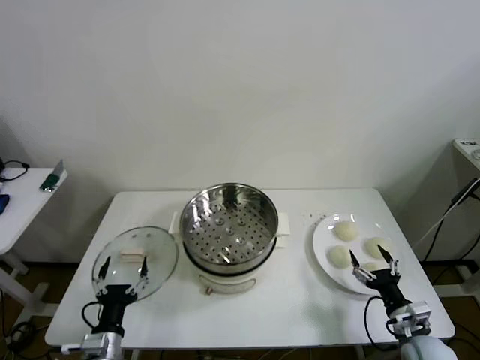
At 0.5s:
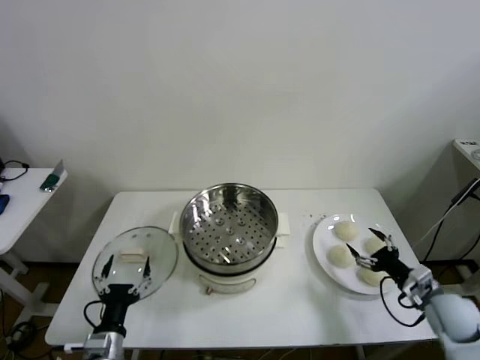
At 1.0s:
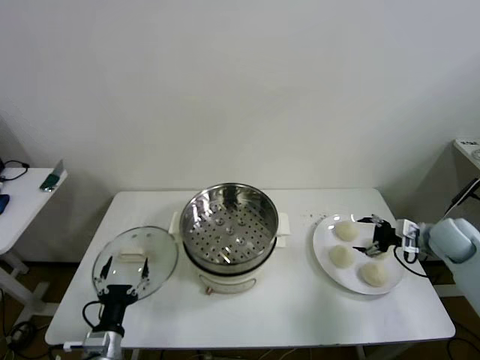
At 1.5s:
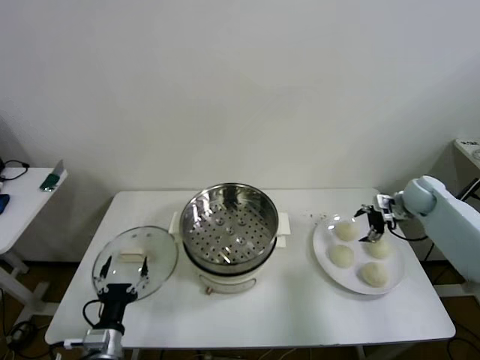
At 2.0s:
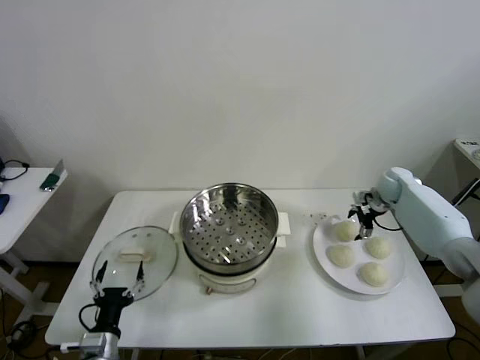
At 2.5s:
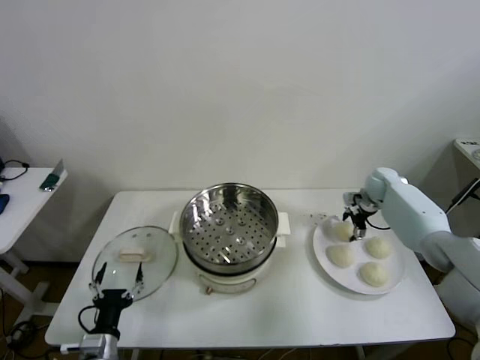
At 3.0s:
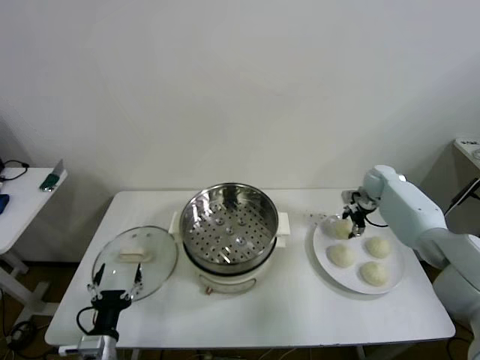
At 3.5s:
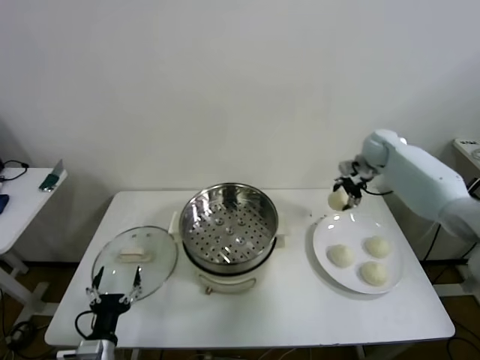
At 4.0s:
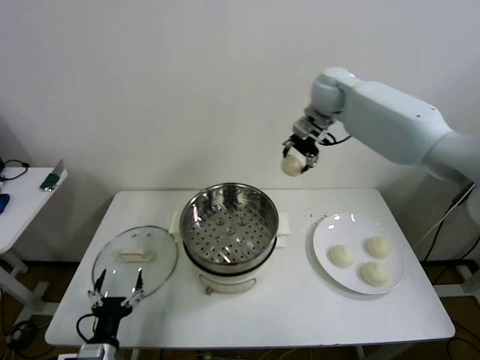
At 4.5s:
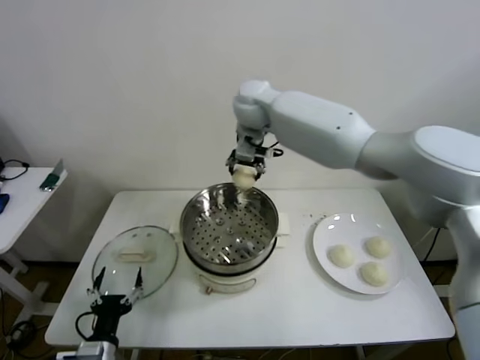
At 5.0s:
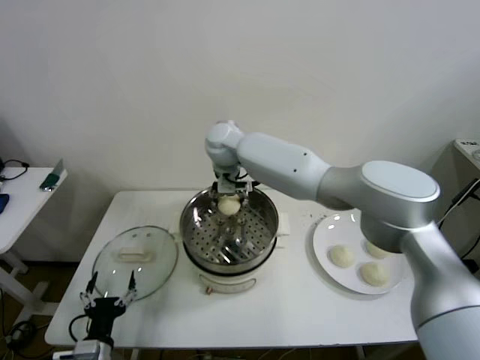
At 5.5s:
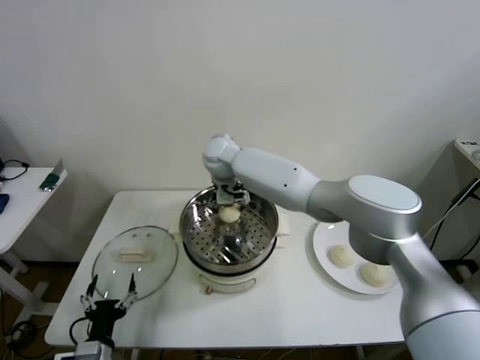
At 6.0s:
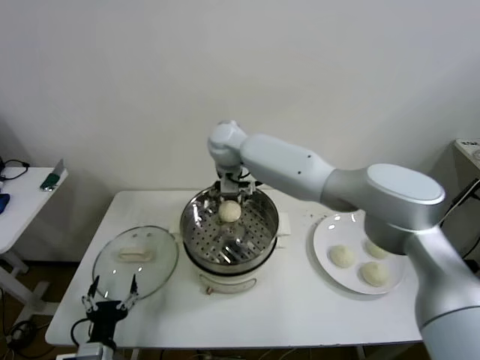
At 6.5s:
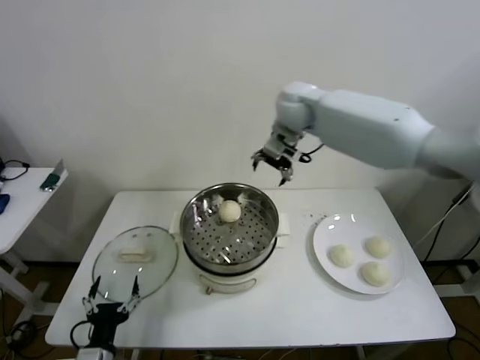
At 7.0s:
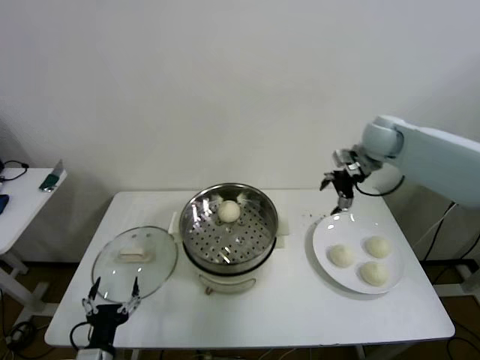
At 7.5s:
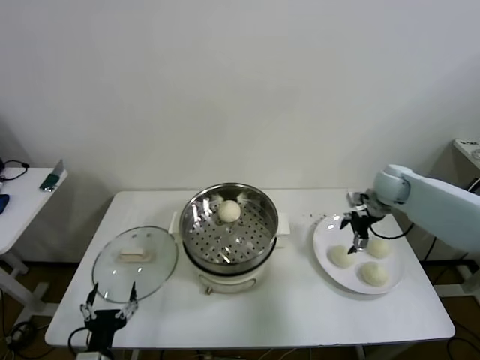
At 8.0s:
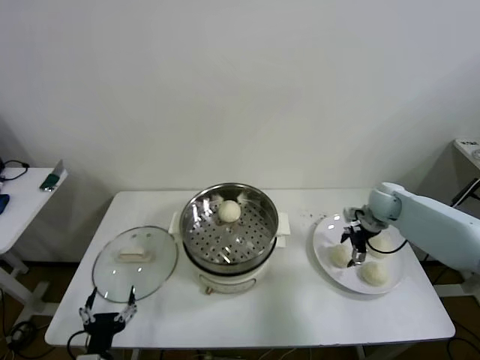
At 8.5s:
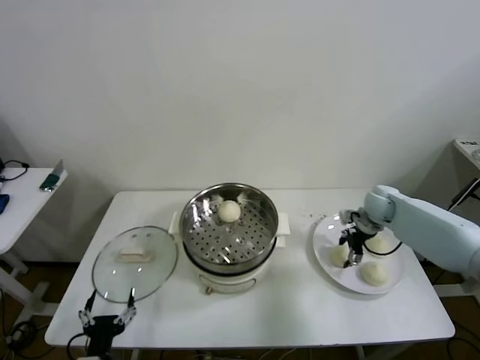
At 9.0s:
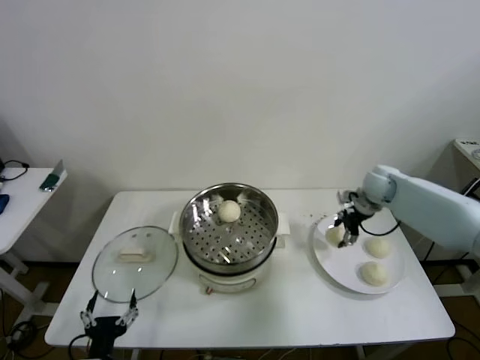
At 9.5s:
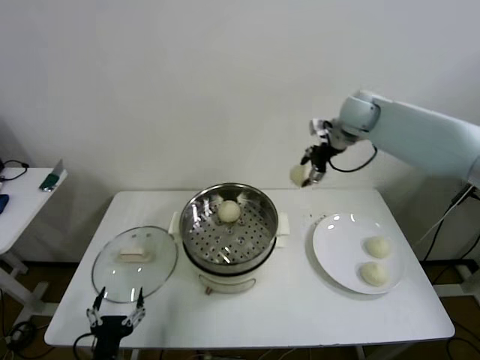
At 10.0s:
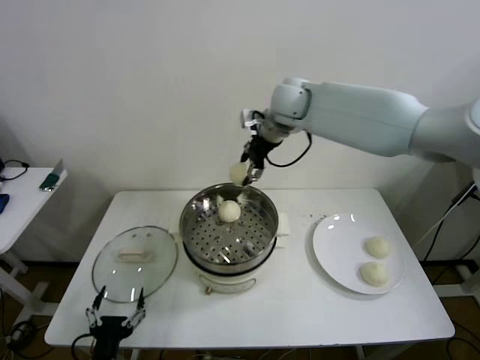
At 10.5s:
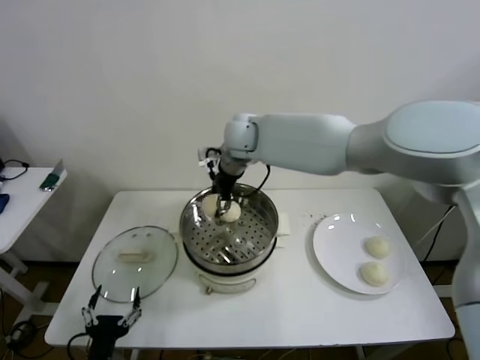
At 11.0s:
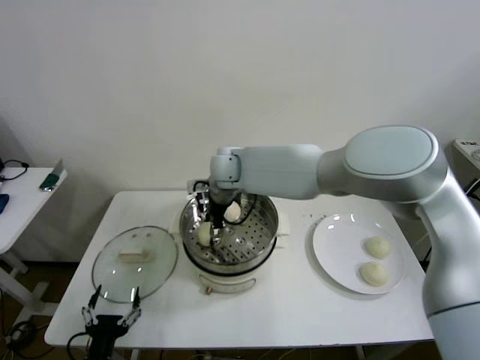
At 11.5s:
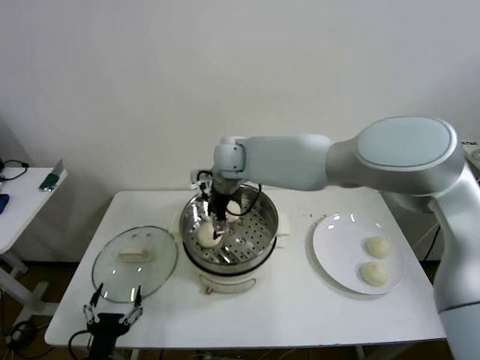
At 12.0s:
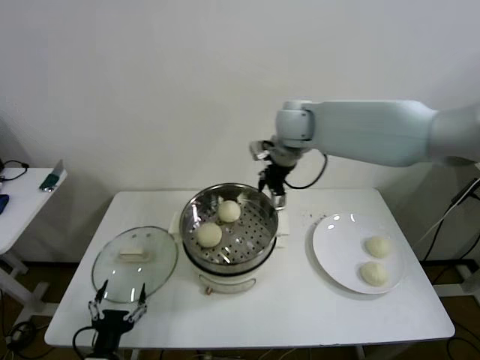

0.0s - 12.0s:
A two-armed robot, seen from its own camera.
Step, 0.0s - 2.5s: Grasp the baozi in the plate with right gripper.
Step, 3.0s - 6.0s: Place the baozi on the steamer with right gripper.
Step, 6.5s - 8.0s: Grasp the baozi in the plate with right gripper.
Step, 8.5s - 11.5s: Place the baozi on the steamer with right gripper.
2.0s - 4.0s: The right gripper moves upward and to the left, some 40 cm, and closes.
4.0s - 6.0s: The right gripper is displaced to the left and downward by some 20 cm, and opens up.
6.0s - 8.0s: The right gripper is displaced to the right and downward by about 40 cm.
8.0s - 10.0s: The right gripper is displaced to the left and upward by roughly 40 cm, and closes.
10.0s - 12.0s: The right gripper travels to the left and back again, about 10 cm each way, and opens up.

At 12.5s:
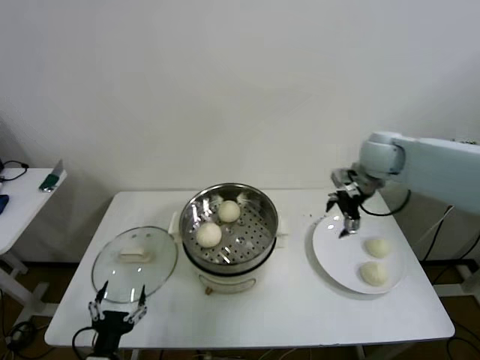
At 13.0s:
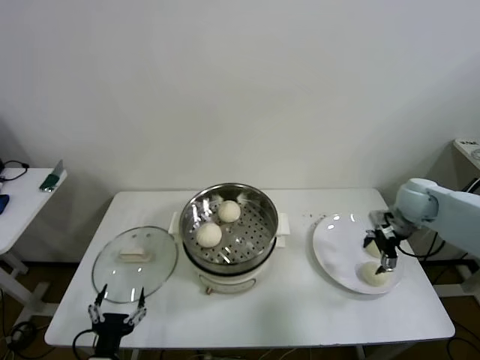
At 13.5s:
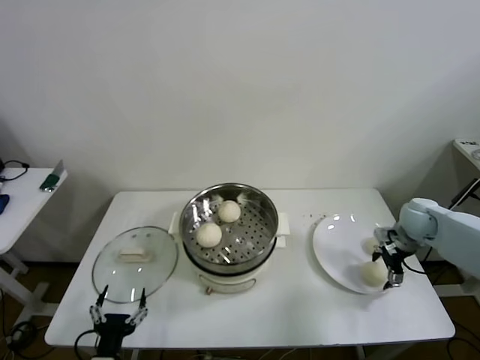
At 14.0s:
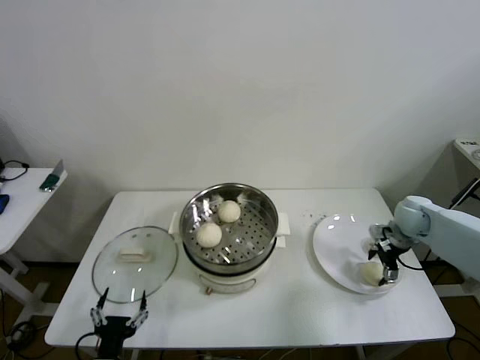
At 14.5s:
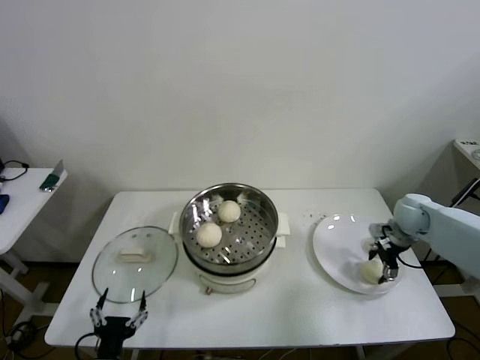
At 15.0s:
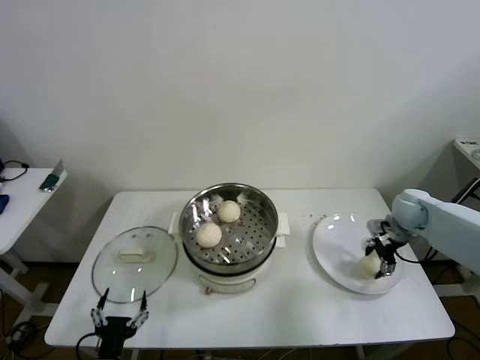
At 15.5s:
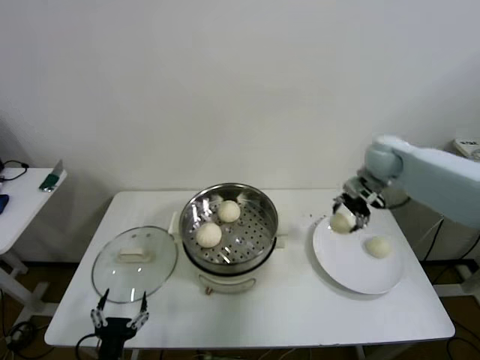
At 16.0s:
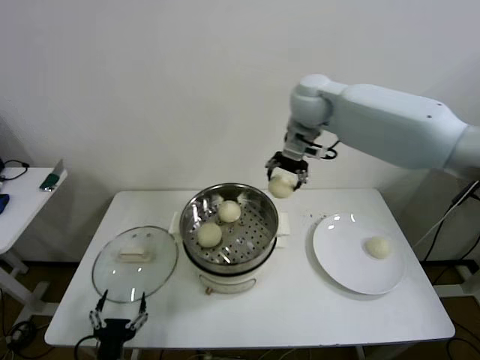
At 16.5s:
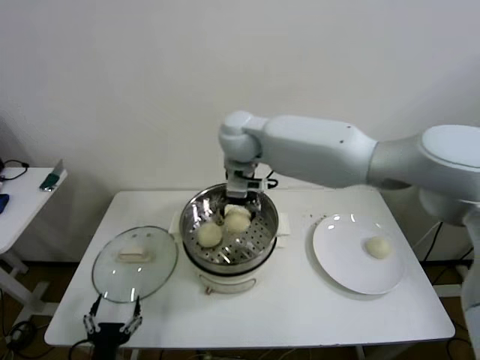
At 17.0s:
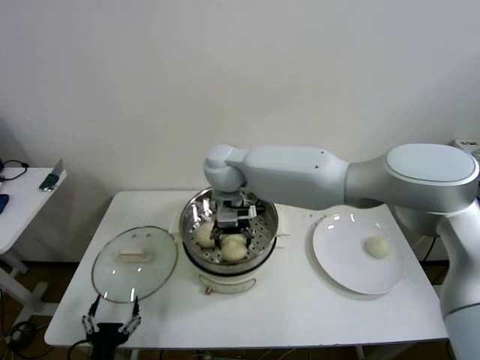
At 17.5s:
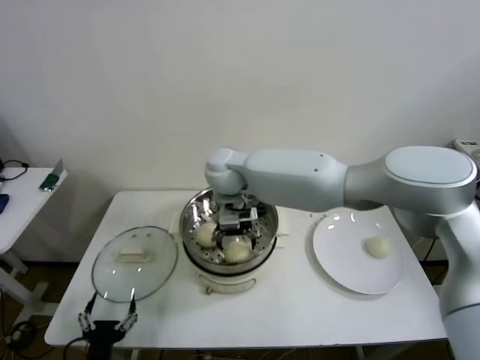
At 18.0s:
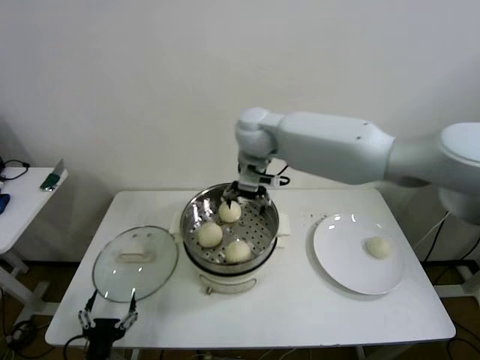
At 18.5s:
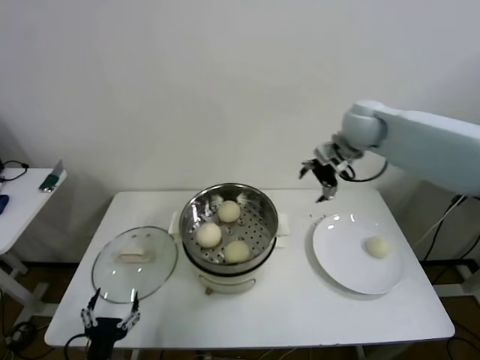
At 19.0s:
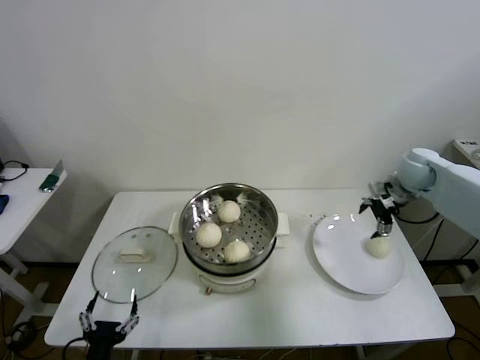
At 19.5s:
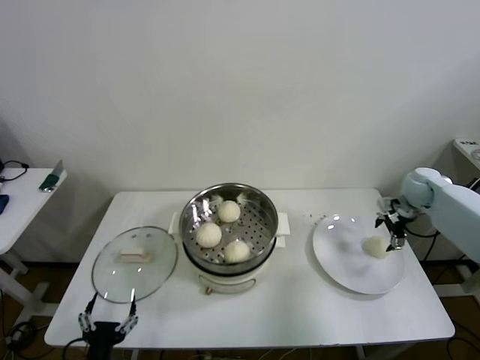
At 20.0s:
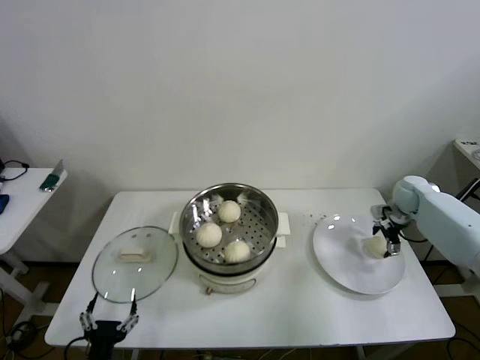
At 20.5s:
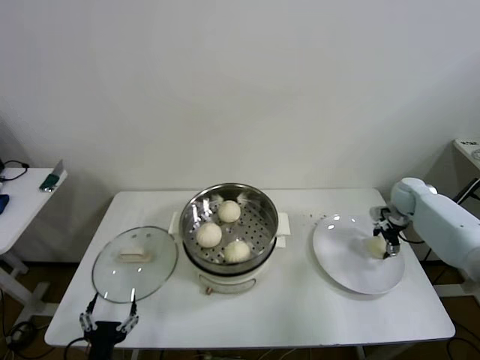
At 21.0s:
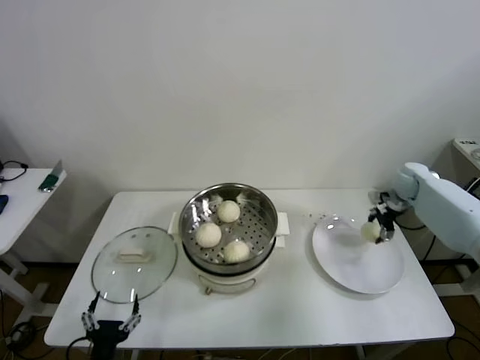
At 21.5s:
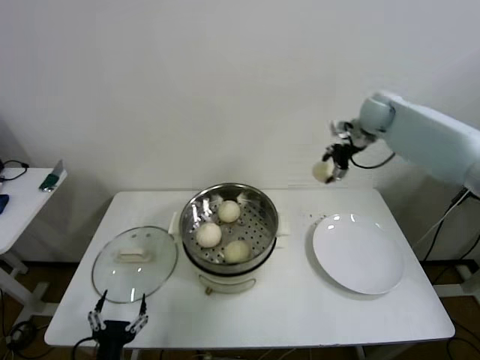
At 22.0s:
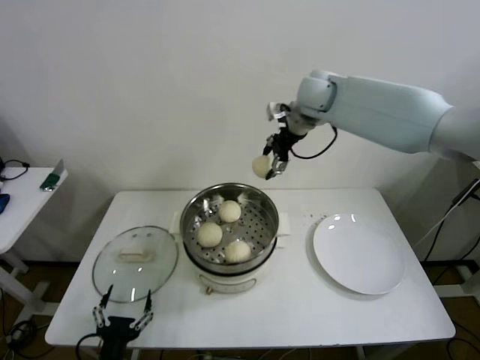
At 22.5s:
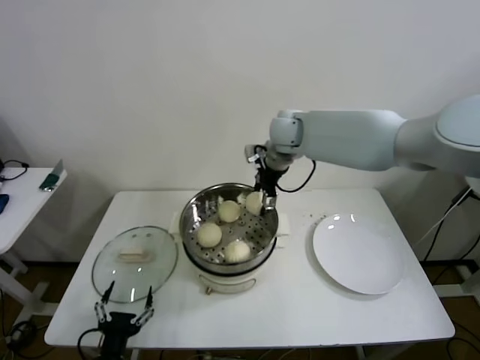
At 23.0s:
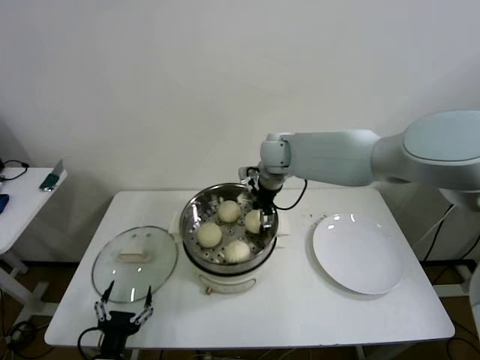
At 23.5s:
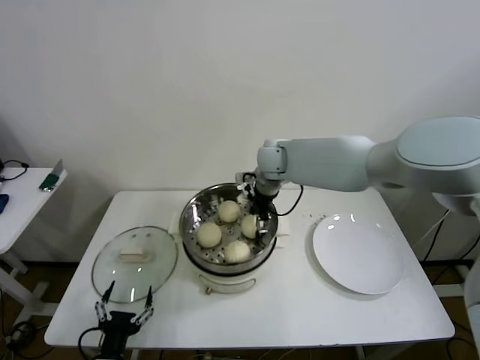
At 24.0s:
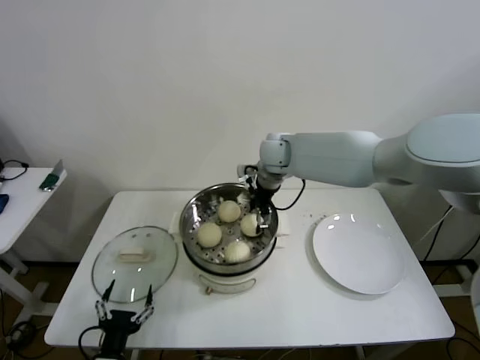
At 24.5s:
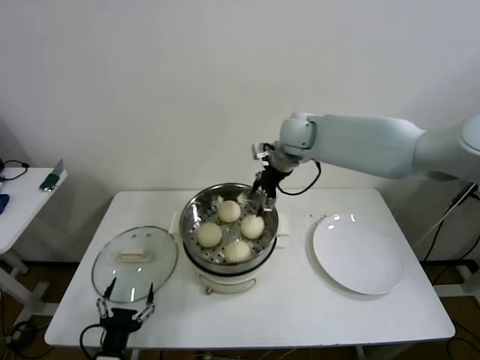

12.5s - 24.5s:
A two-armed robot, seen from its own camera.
Step, 12.5s - 14.5s: Grasp the baozi in the plate with right gripper.
Step, 15.0s - 17.5s: Place the baozi on the steamer with right gripper.
Step, 18.0s - 20.0s: Grasp the baozi in the plate with right gripper.
Step, 20.5s - 24.0s: Place the baozi on the steamer with right gripper.
12.5s - 14.5s: The right gripper heads downward and to the right, covering roughly 20 cm, and closes its fingers.
14.5s - 16.5s: The right gripper moves to the left and upward, approximately 50 cm.
16.5s - 18.5s: The right gripper goes approximately 30 cm to the right, and opens its fingers.
18.5s - 20.5s: The right gripper goes about 30 cm downward and to the right, and closes.
20.5s - 22.5s: The right gripper travels to the left and upward by about 40 cm.
22.5s - 24.5s: The right gripper opens up.

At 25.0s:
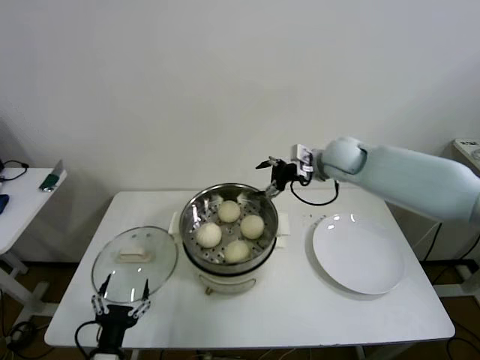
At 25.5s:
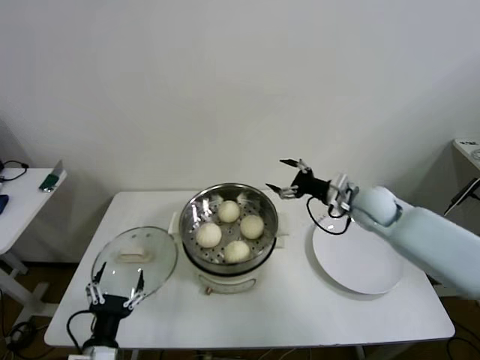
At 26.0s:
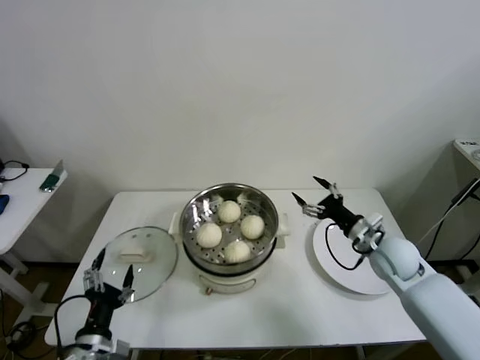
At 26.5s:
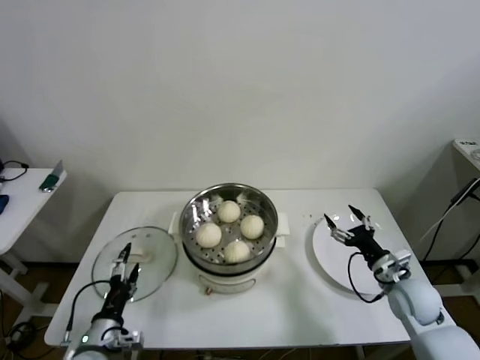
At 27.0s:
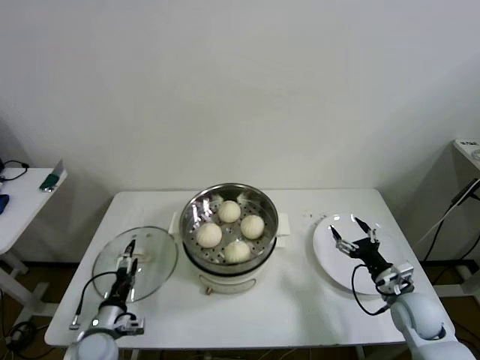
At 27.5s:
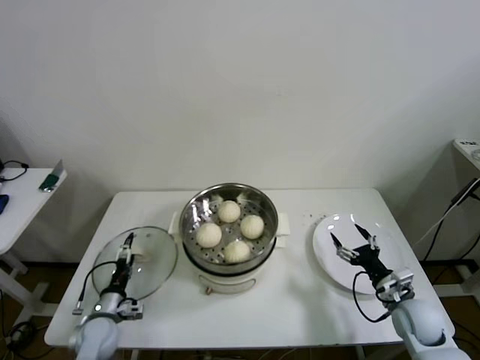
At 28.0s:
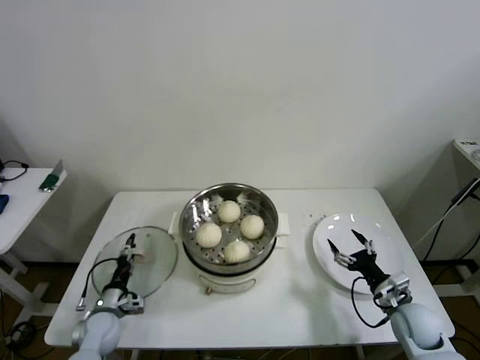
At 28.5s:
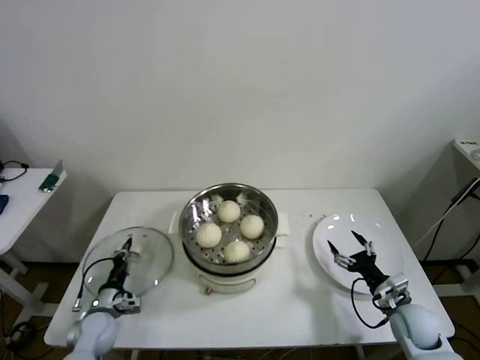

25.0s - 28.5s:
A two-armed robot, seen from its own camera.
Step, 25.0s - 28.5s: Grasp the pot lid with left gripper.
25.0s - 27.0s: The left gripper is displaced forward, to the left and downward by roughly 15 cm. The right gripper shifts approximately 40 cm downward, backward and to the right.
27.0s - 28.5s: The left gripper shifts approximately 5 cm forward, and closes its fingers.
